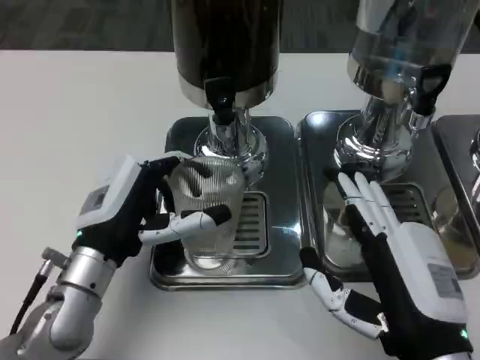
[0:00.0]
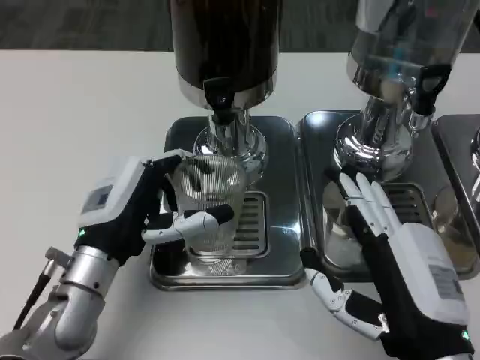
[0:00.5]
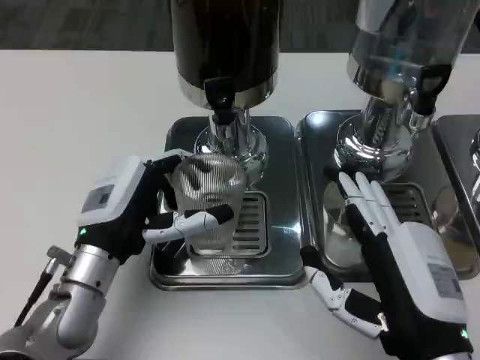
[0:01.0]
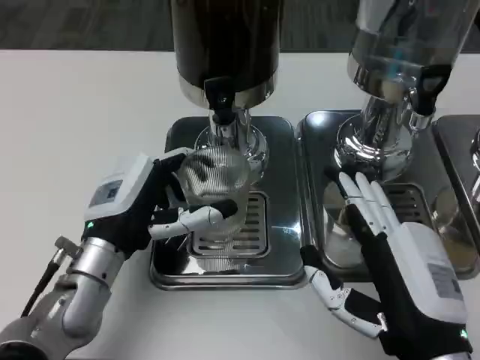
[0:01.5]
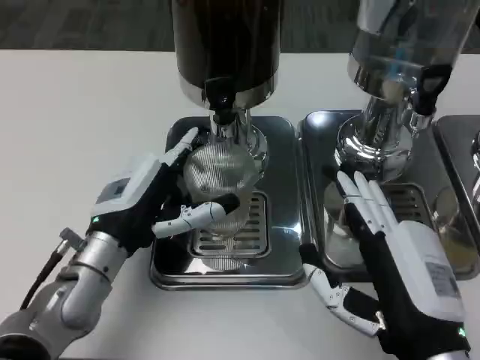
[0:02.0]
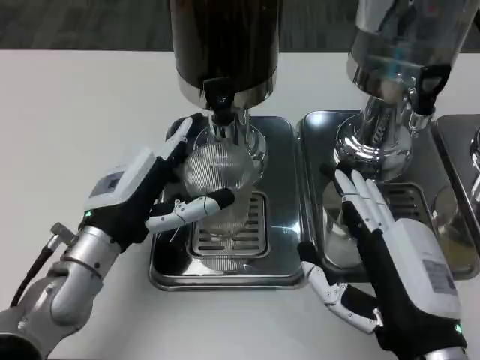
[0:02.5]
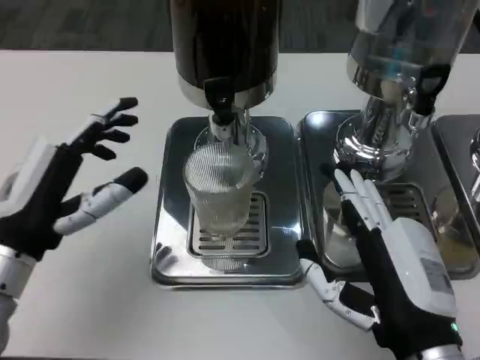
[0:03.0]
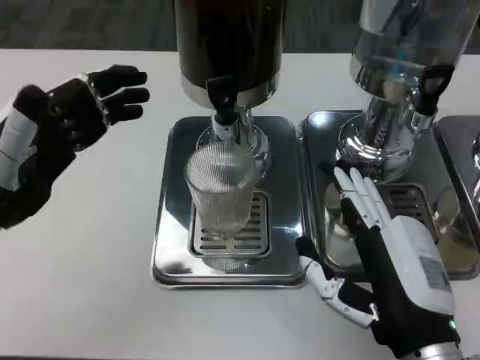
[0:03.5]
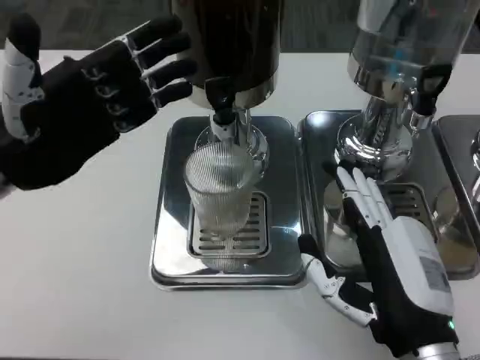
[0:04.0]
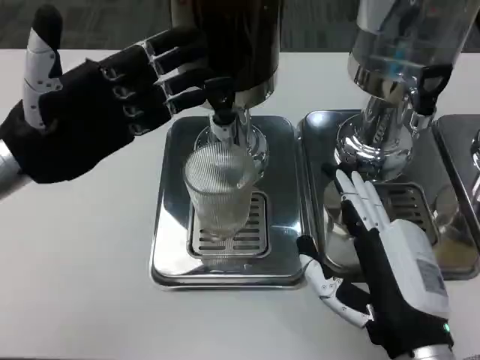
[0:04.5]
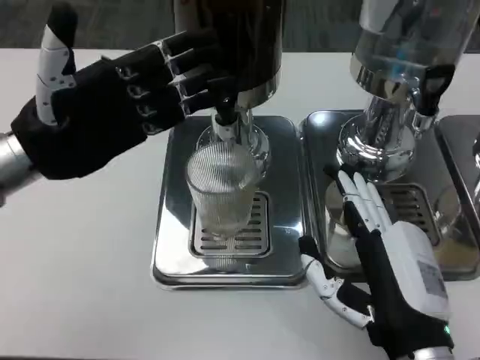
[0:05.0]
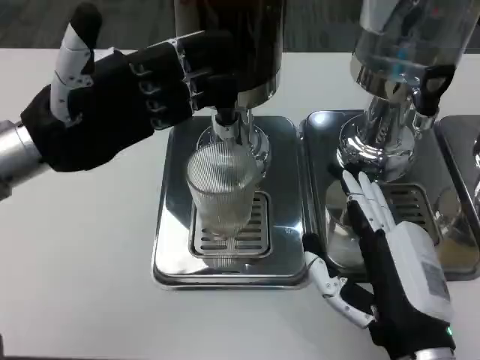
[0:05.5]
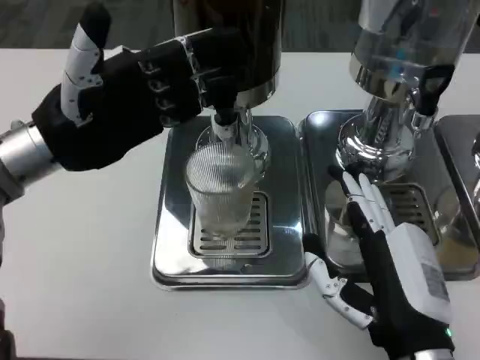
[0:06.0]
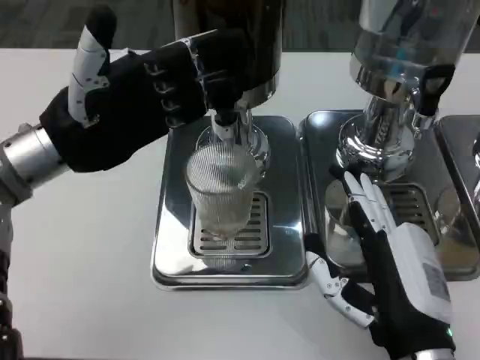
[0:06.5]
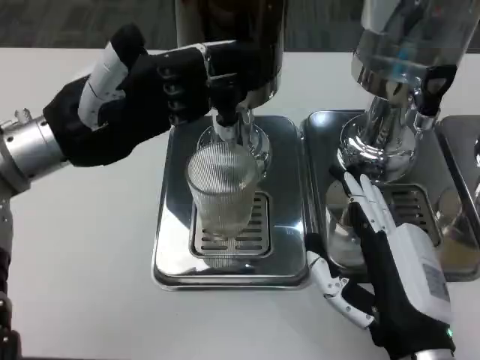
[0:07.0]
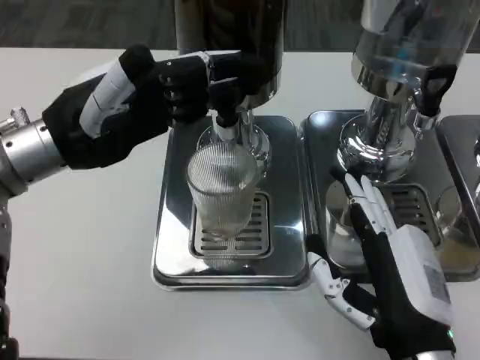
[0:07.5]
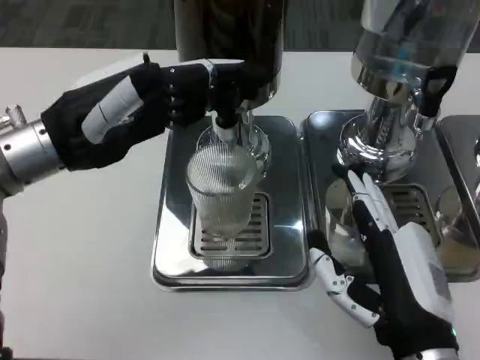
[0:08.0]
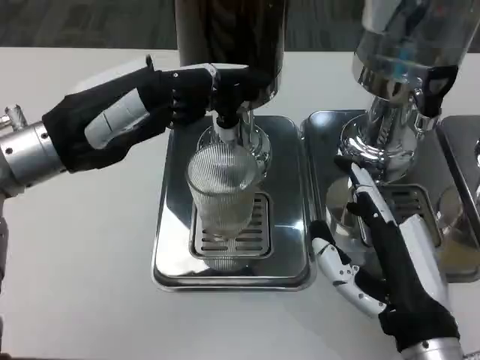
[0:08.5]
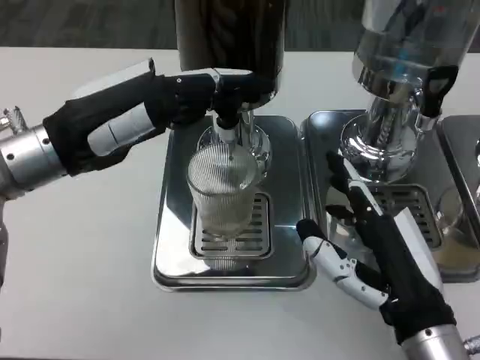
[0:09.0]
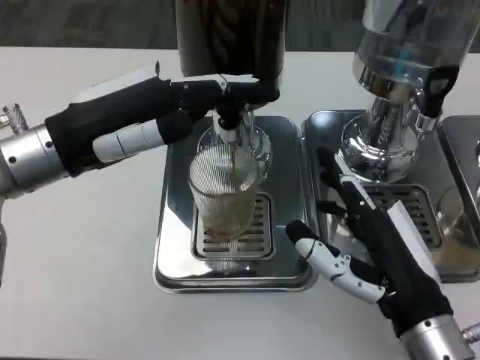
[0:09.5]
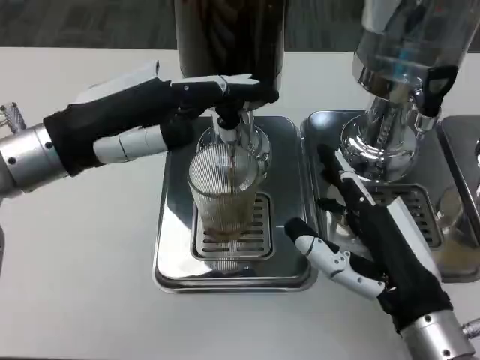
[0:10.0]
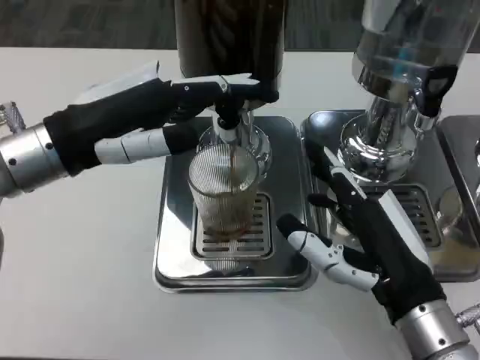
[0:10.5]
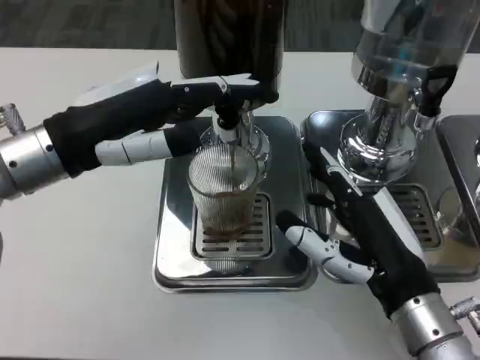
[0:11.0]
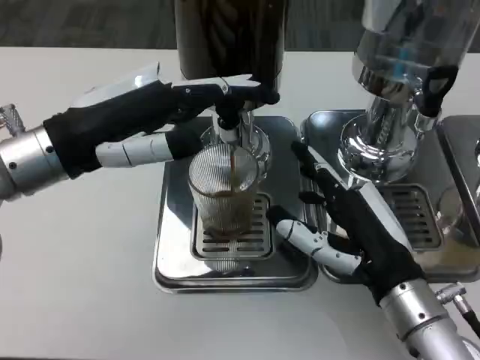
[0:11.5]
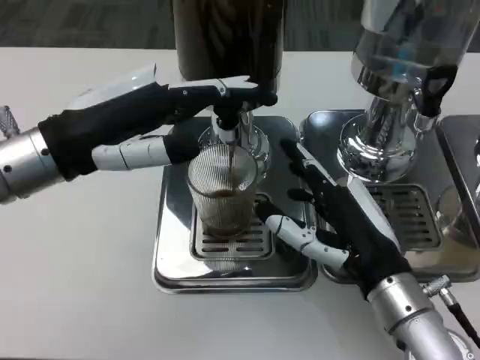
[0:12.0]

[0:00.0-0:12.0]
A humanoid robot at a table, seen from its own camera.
Task of the whole recording: Grasp the cup under the faucet to collect the drink, then remove the cup.
0:00.0 to 0:02.0: The hands make only small movements.
0:02.0 to 0:04.0: The left hand travels upward and to the left by roughly 15 cm.
0:04.0 to 0:06.0: The hands stay close to where they were, moving slightly.
0:10.0 to 0:12.0: The hands stay close to where they were, moving slightly.

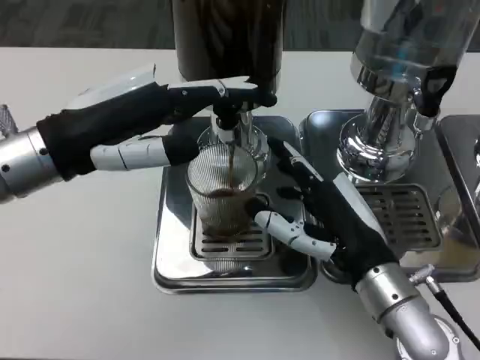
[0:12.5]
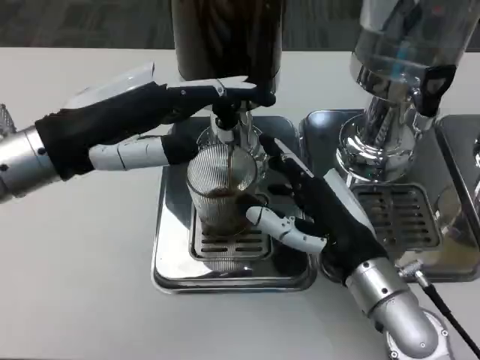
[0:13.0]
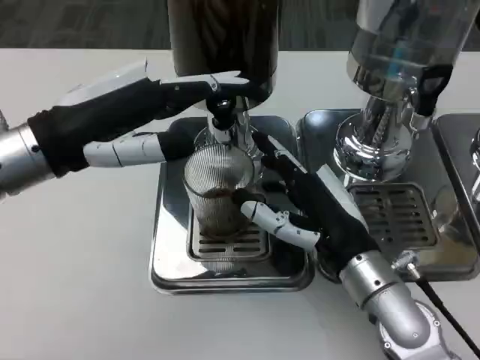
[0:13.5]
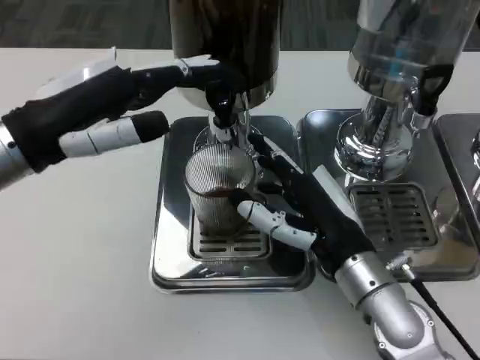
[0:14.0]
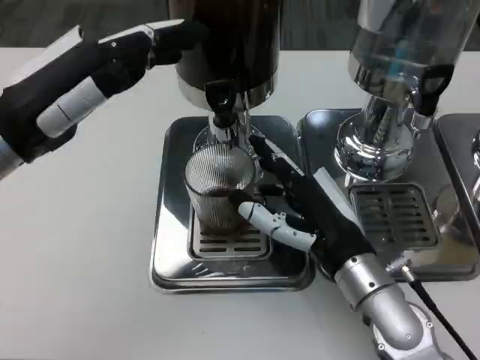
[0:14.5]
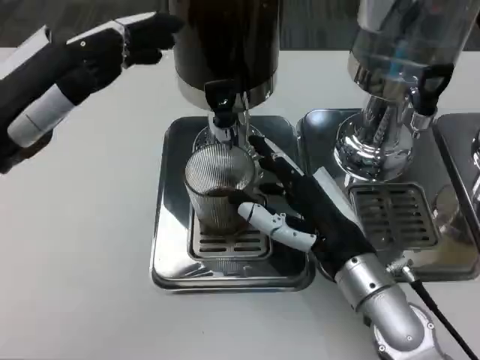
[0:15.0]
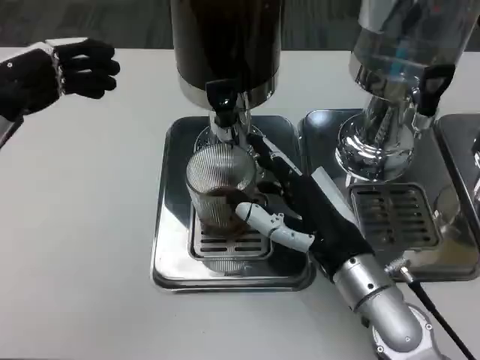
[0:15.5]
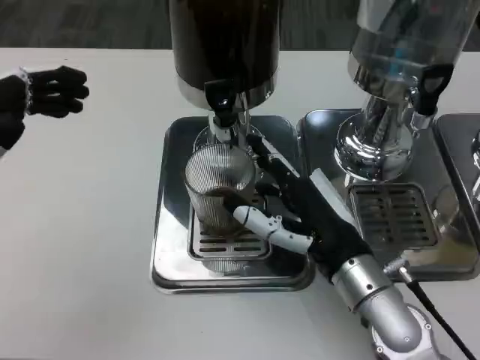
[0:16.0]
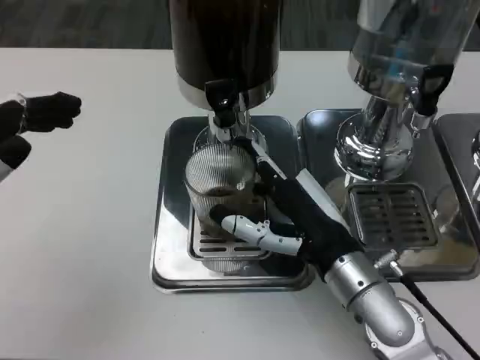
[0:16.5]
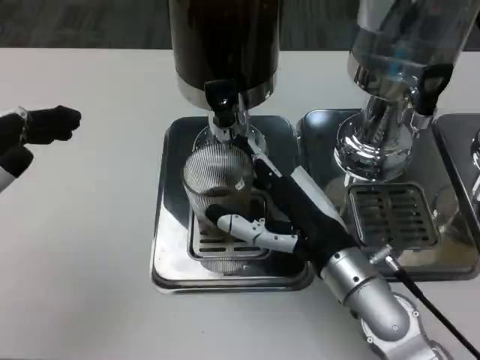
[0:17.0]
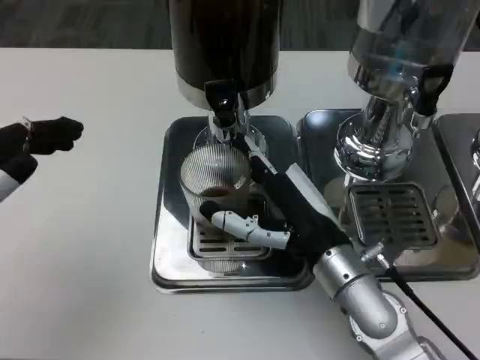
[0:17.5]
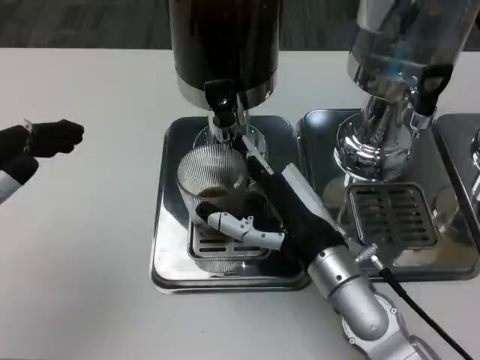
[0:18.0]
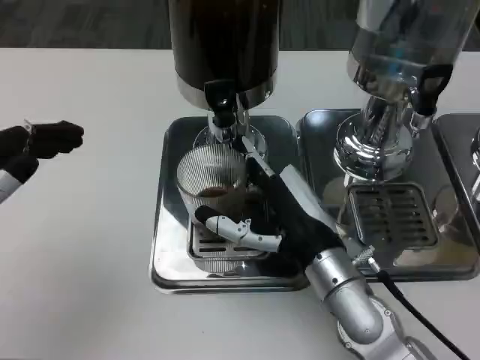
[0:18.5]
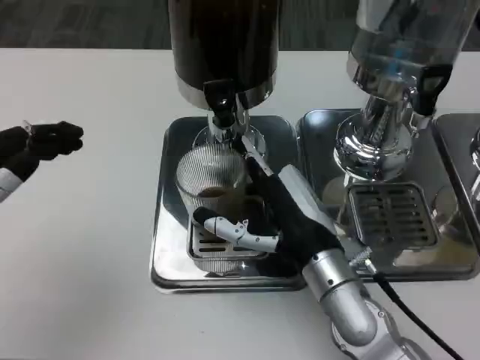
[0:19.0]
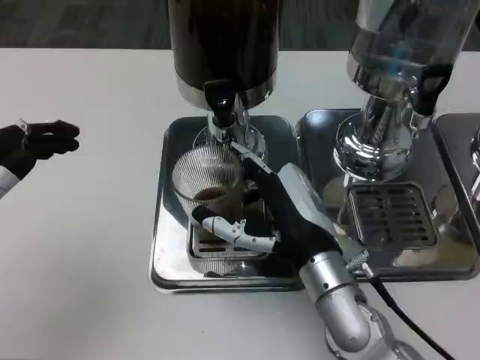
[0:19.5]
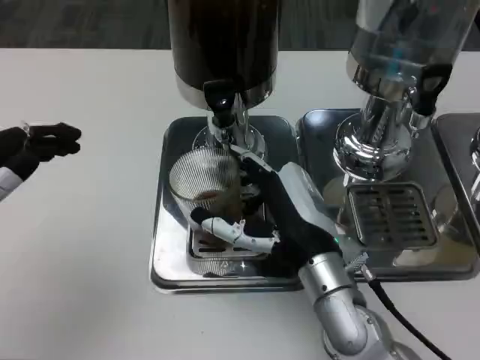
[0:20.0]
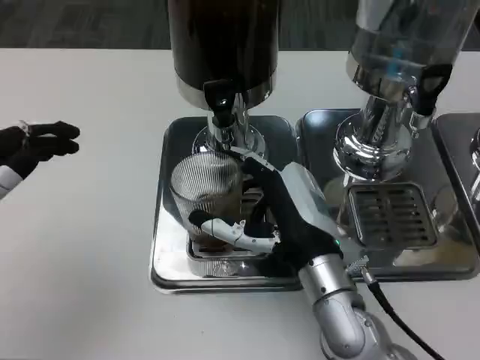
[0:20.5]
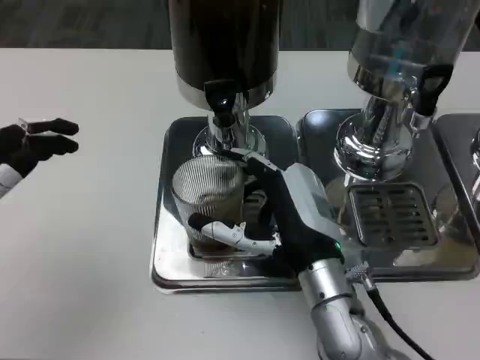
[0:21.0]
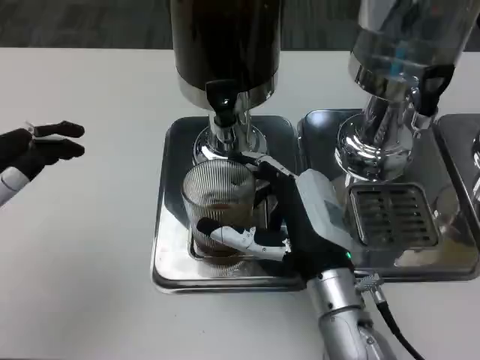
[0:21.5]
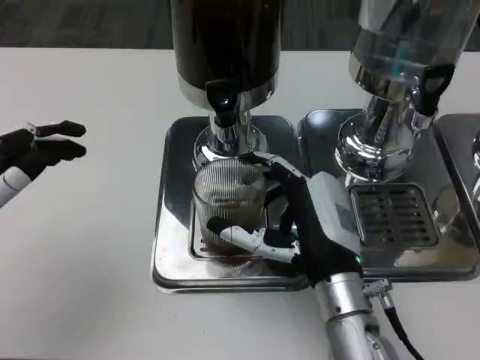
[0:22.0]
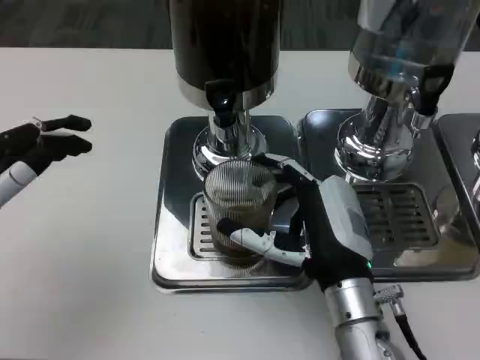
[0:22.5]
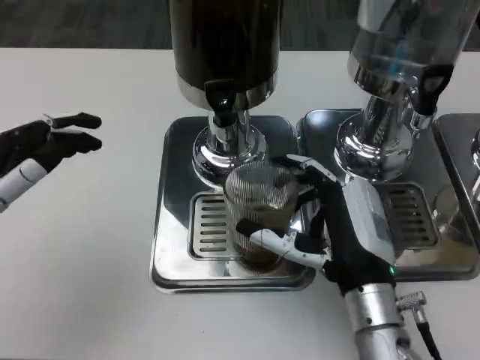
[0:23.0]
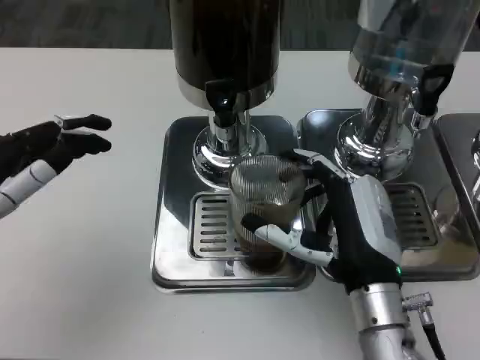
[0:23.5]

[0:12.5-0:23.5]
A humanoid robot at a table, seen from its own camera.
Task of the whole recording: Grasp the cup under the faucet to collect the drink, then remove the cup.
0:14.5 to 0:16.0: The left hand moves backward and to the left, roughly 10 cm.
0:16.0 to 0:20.0: There are only small adjustments of the hands.
0:20.0 to 0:21.5: The hands move only a little.

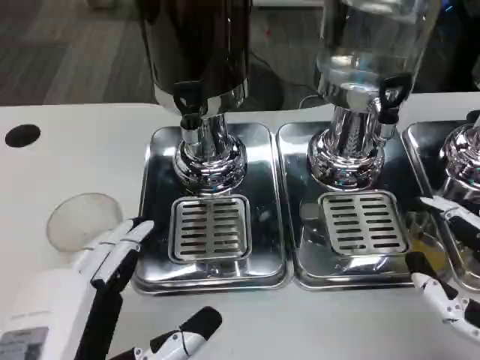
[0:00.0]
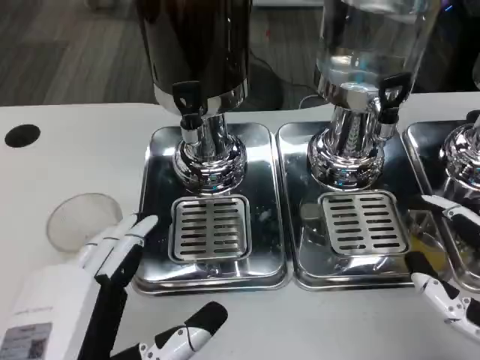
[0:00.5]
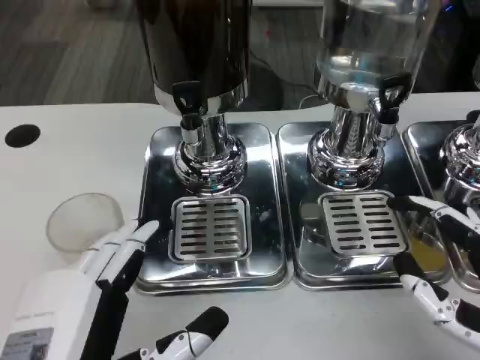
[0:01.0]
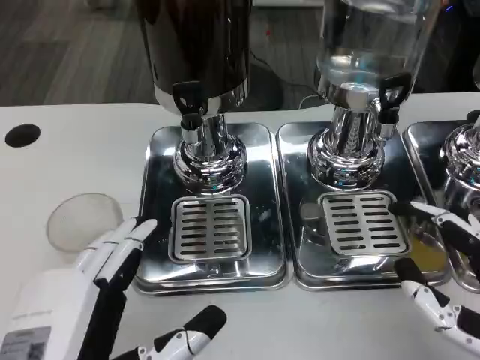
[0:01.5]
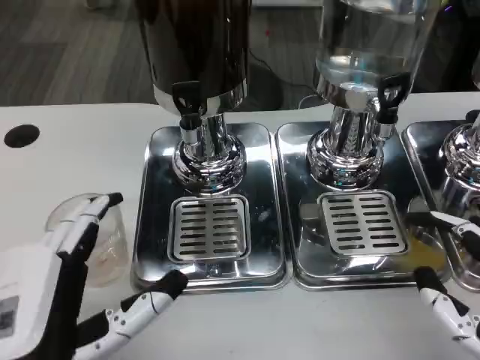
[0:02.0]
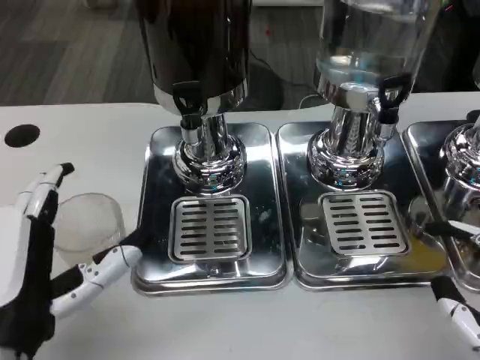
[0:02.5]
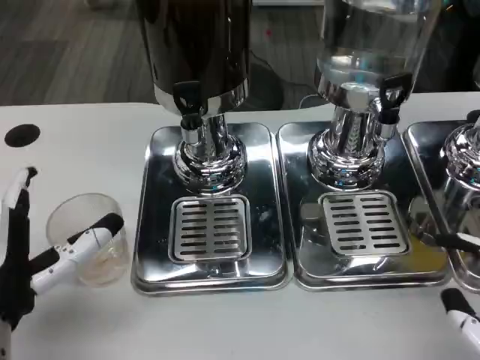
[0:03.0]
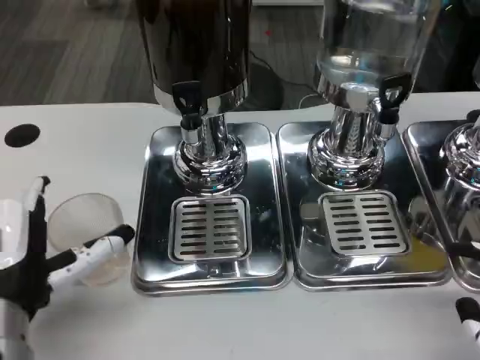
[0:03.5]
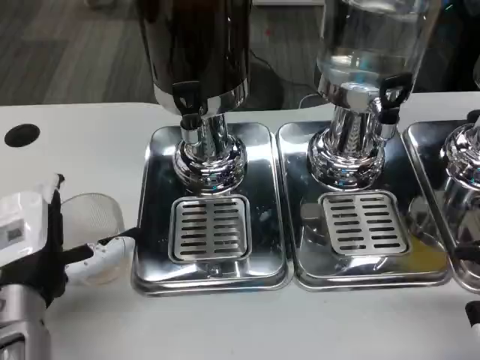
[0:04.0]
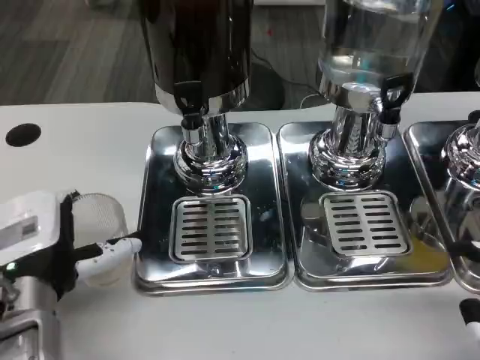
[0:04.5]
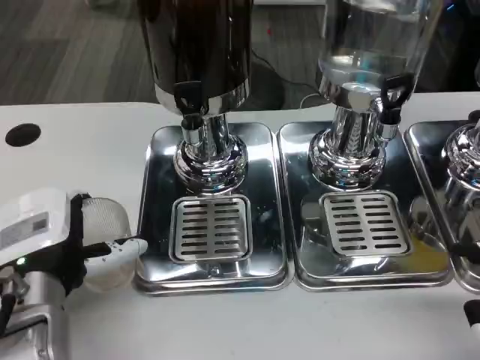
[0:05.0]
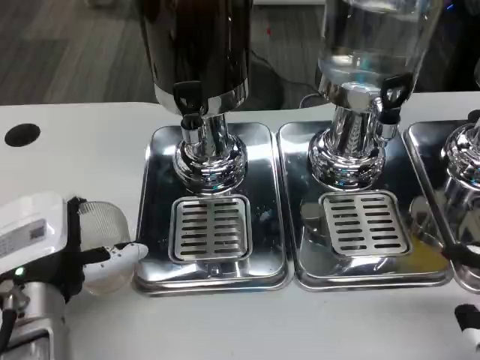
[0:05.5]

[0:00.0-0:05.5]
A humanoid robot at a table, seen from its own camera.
Task of the whole recording: Grasp the cup under the faucet to collect the drink, then remove the cup.
0:00.0 to 0:02.0: The hands move only a little.
0:02.0 to 0:03.5: The left hand shifts approximately 10 cm forward.
0:03.5 to 0:05.5: The hands make only small movements.
